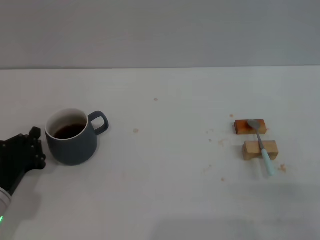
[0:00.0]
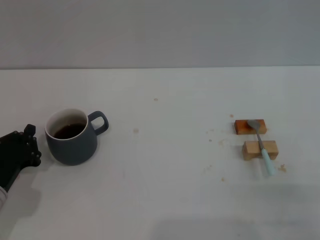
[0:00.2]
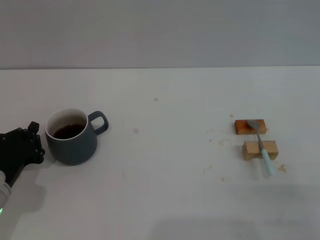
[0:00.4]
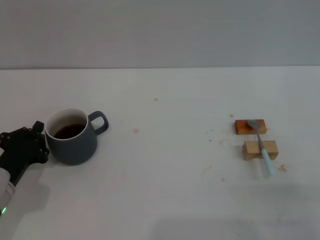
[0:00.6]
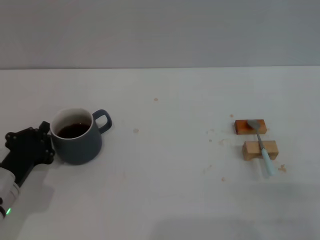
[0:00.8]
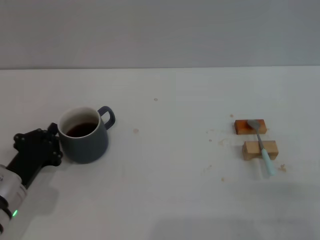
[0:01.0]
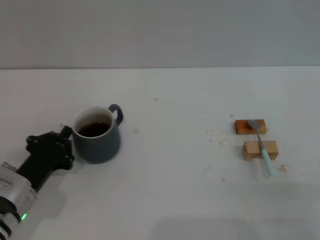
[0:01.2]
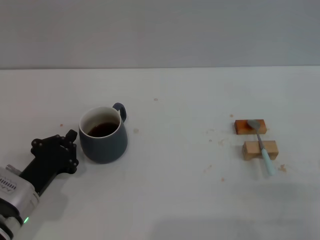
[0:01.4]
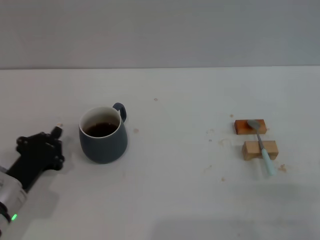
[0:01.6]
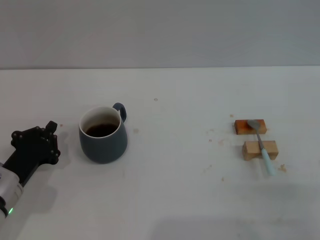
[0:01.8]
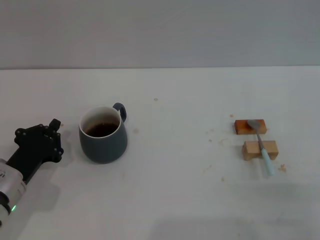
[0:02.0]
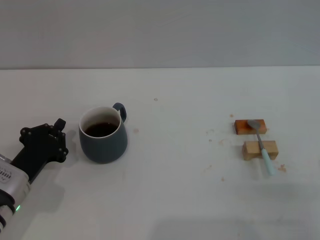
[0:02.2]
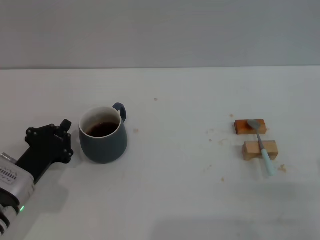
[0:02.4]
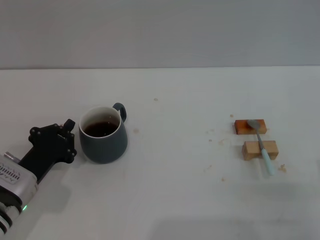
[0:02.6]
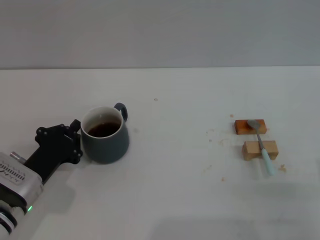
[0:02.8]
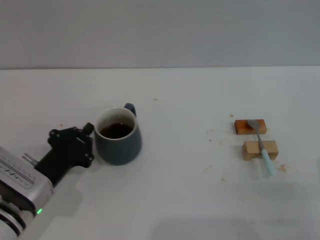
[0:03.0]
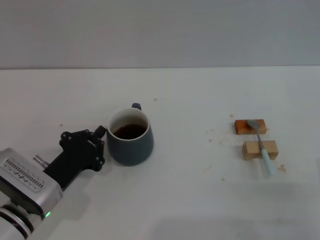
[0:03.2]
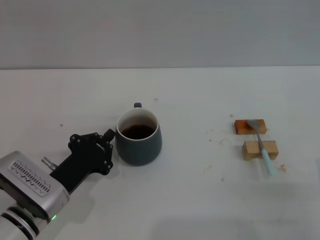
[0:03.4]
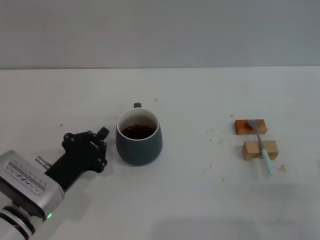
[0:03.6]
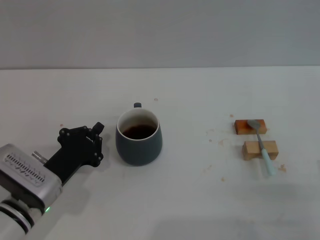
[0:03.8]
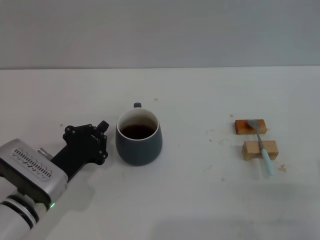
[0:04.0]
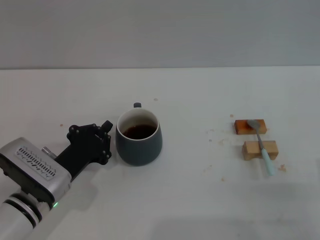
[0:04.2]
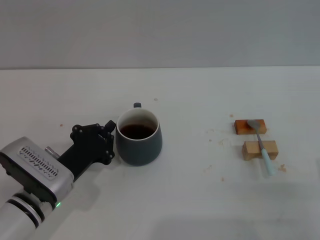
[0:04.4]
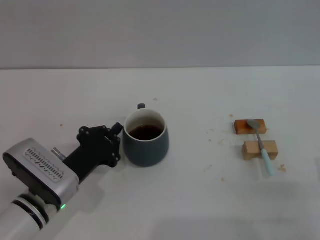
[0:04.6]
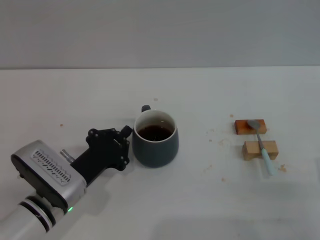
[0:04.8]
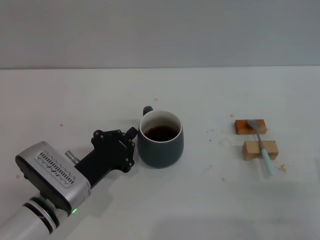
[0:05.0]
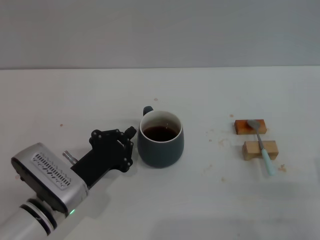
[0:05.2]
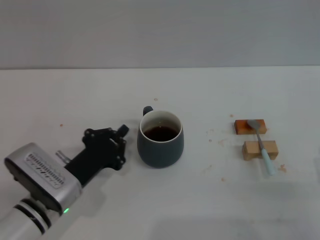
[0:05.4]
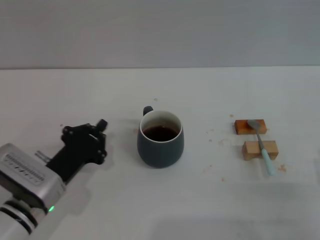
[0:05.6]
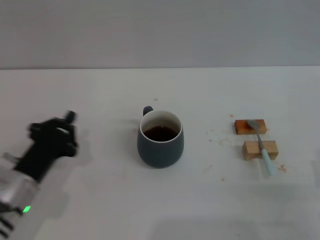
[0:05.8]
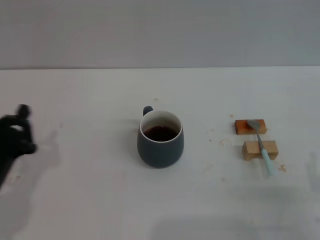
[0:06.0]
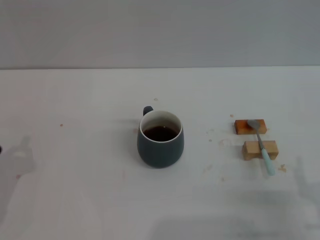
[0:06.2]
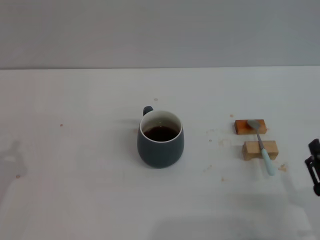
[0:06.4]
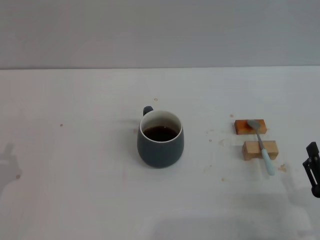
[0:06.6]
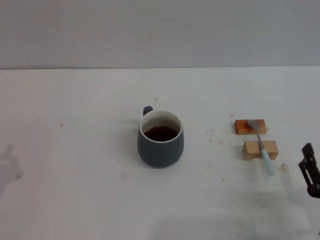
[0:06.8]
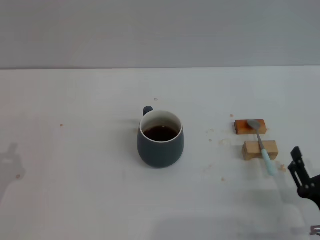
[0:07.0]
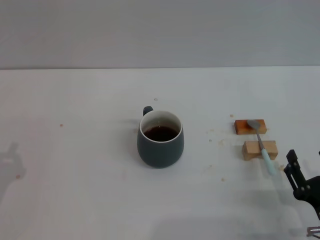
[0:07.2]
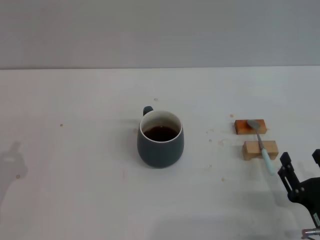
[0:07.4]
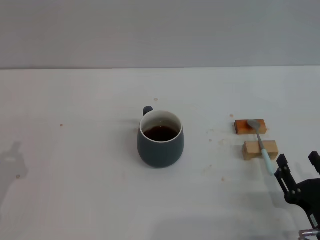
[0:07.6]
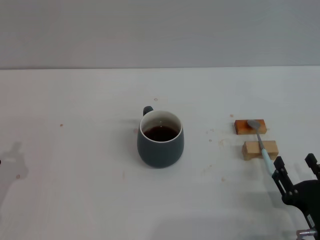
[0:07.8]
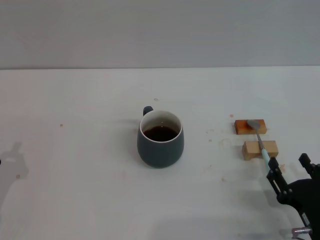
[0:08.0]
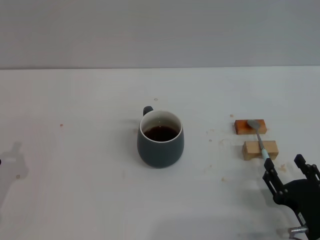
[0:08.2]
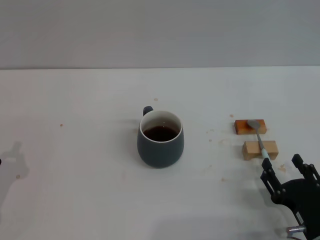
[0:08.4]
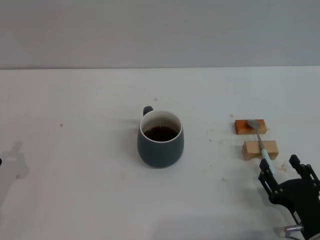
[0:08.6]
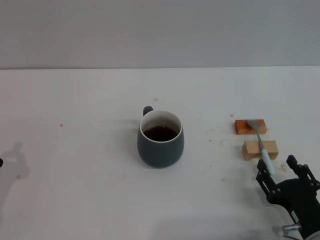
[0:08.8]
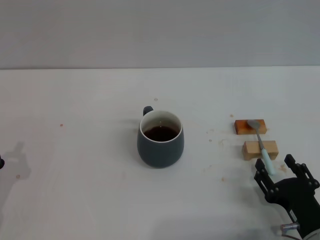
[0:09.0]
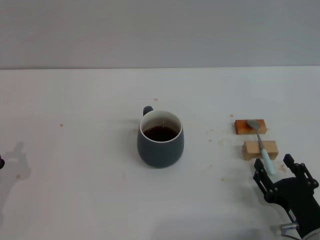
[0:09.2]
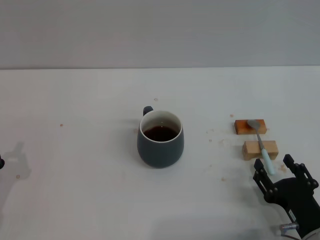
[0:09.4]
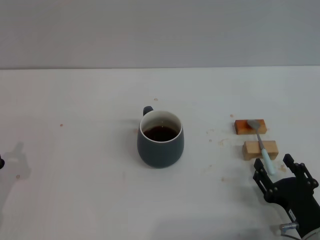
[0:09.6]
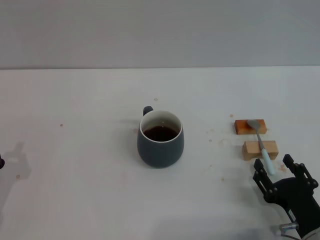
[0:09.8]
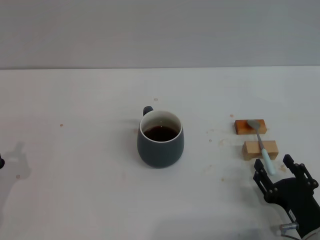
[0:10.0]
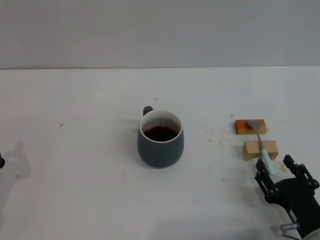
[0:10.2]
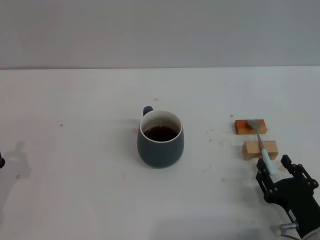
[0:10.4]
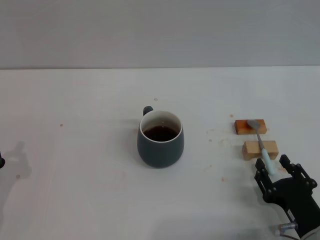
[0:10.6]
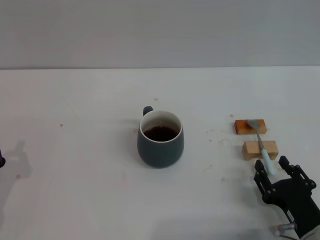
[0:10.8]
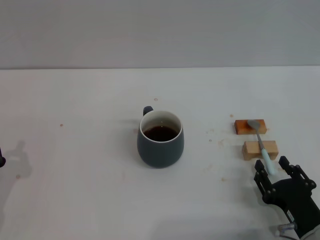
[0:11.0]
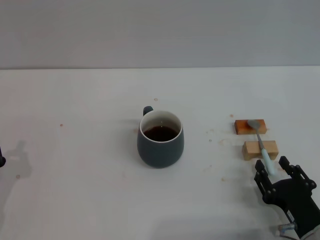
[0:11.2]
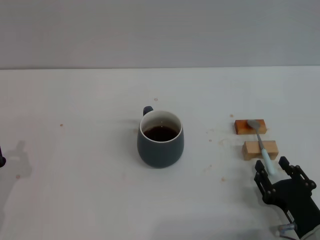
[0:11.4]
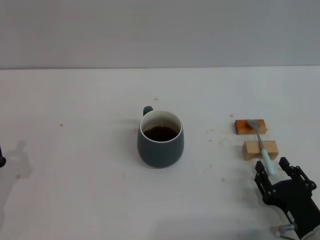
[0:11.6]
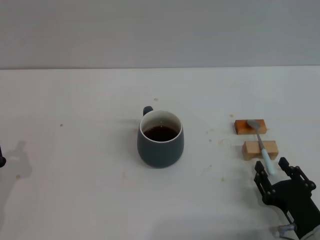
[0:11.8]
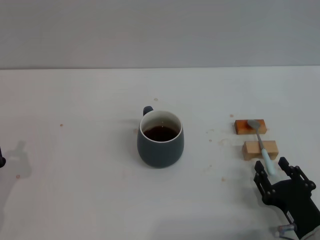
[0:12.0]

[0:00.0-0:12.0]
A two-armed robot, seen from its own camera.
Task of the whole recording: Move the grey cup to the center, lift the blue spoon, stir it three times in the cup, and put the spoon into the cup.
Step, 0:00.0 to 0:05.4: Move the cup with coffee to the center of view with the left gripper.
0:00.0 to 0:03.0: The grippers stay close to where they were, moving slightly.
0:03.0 to 0:04.4: The grippers move only a little.
0:04.4 to 0:06.0: The left gripper travels to the left and backward by some 10 cm.
0:06.0 to 0:07.6: There are only small adjustments of the grippers.
0:07.6 to 0:09.0: The grippers move only a little.
0:09.0 to 0:12.0: Both grippers stay about where they are.

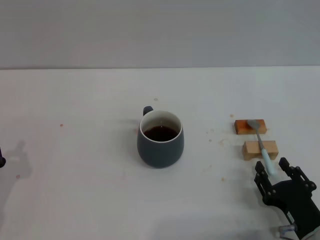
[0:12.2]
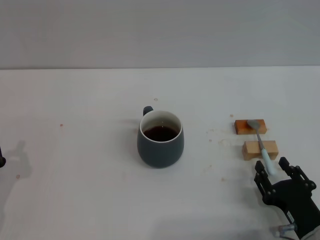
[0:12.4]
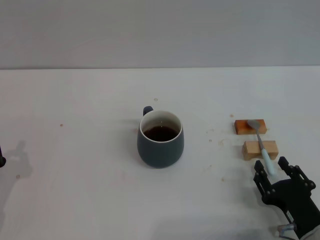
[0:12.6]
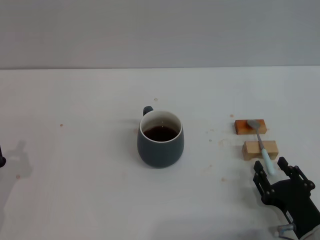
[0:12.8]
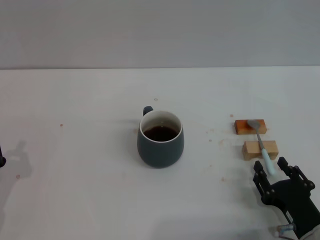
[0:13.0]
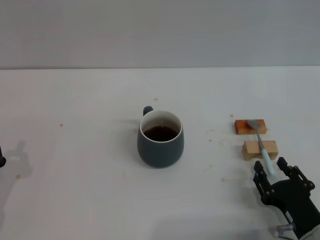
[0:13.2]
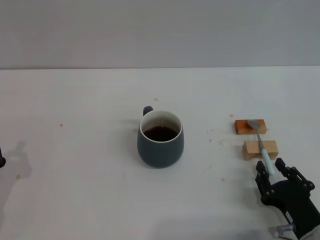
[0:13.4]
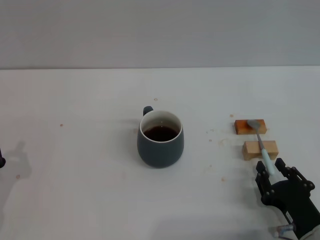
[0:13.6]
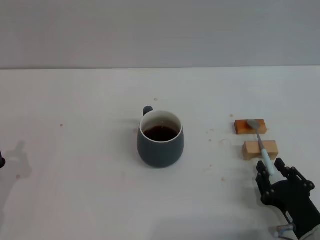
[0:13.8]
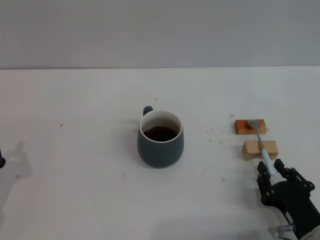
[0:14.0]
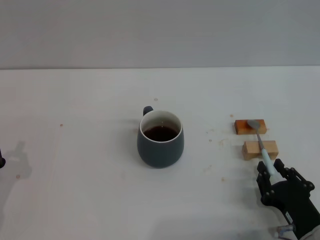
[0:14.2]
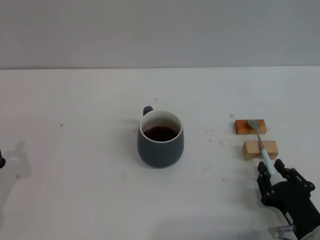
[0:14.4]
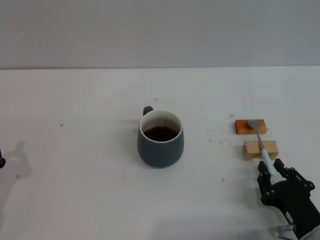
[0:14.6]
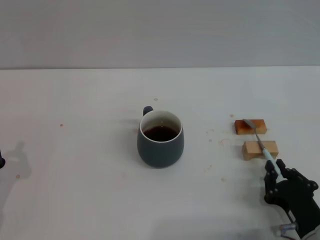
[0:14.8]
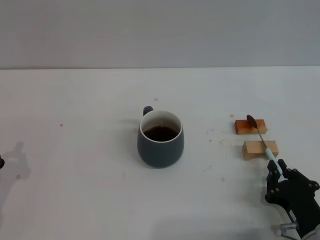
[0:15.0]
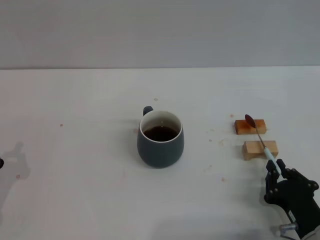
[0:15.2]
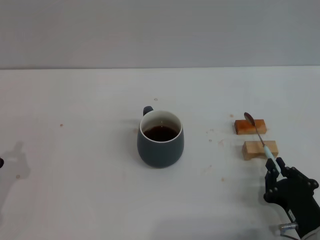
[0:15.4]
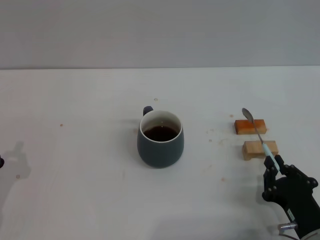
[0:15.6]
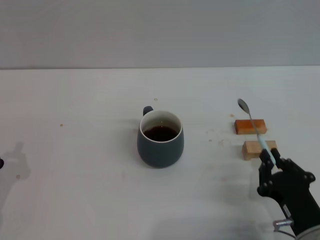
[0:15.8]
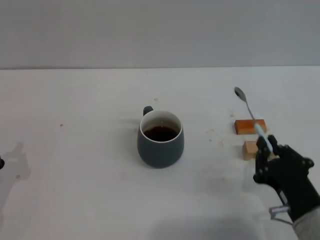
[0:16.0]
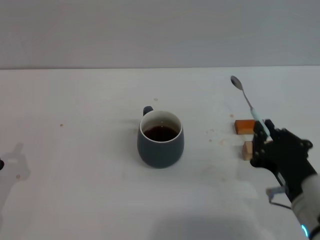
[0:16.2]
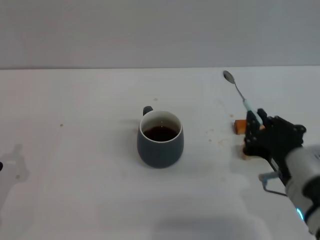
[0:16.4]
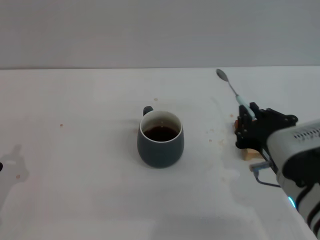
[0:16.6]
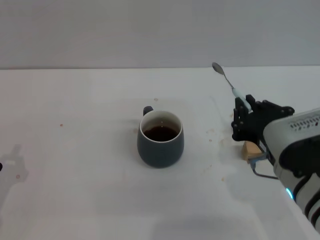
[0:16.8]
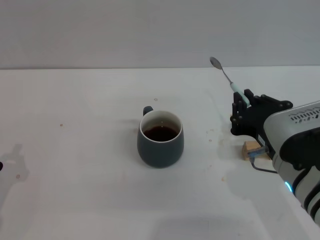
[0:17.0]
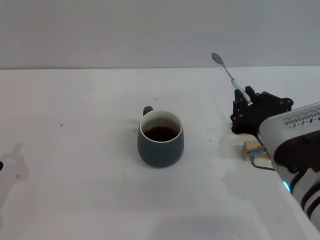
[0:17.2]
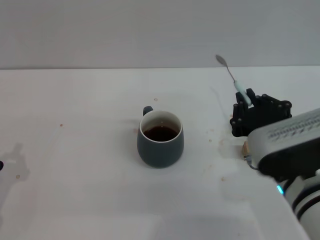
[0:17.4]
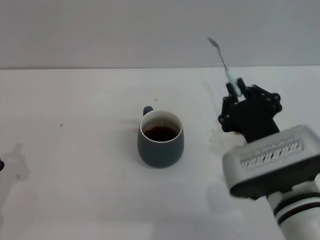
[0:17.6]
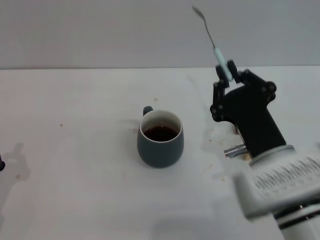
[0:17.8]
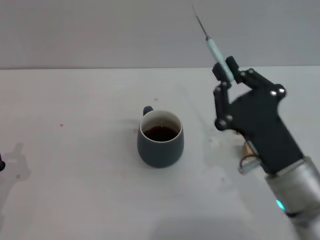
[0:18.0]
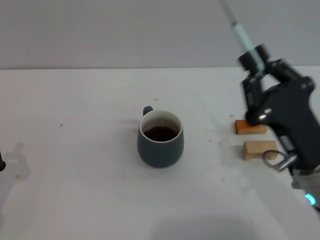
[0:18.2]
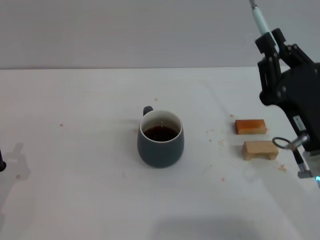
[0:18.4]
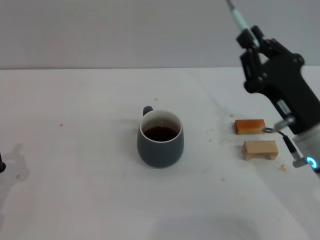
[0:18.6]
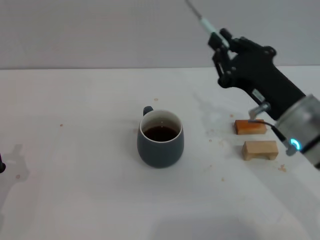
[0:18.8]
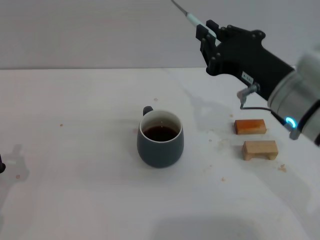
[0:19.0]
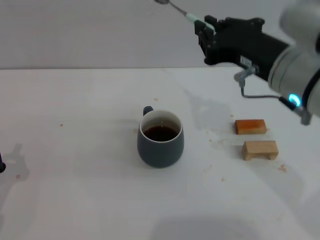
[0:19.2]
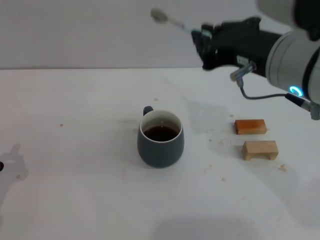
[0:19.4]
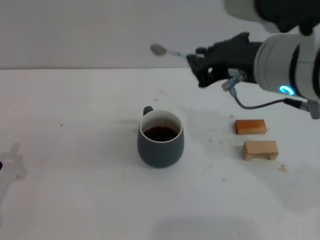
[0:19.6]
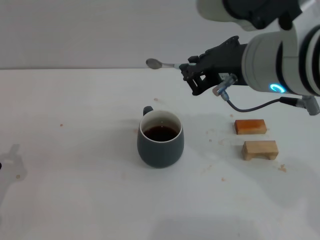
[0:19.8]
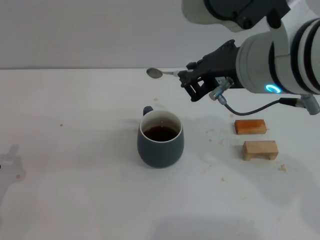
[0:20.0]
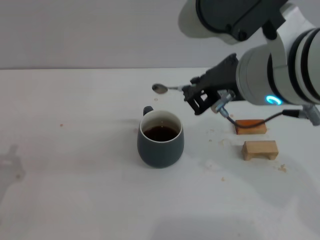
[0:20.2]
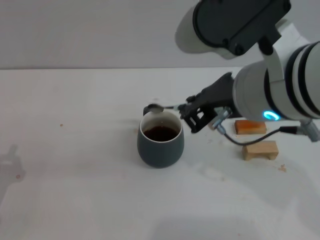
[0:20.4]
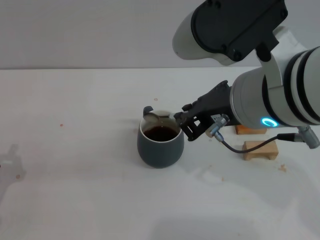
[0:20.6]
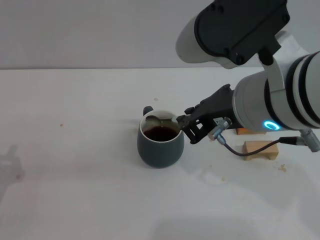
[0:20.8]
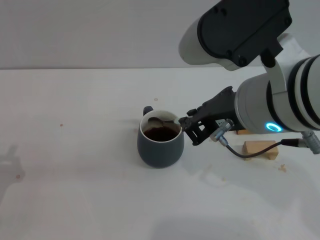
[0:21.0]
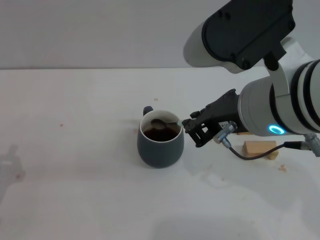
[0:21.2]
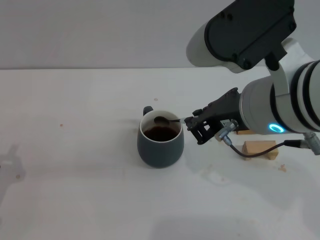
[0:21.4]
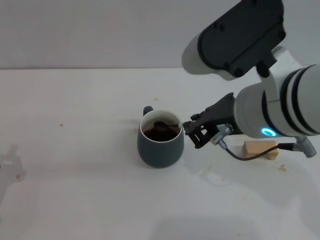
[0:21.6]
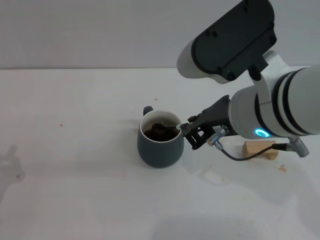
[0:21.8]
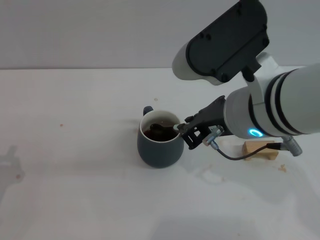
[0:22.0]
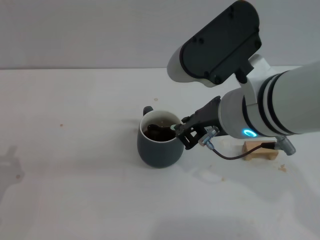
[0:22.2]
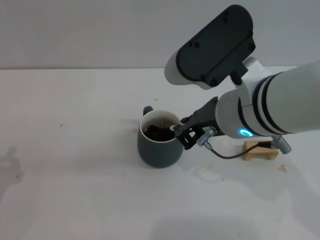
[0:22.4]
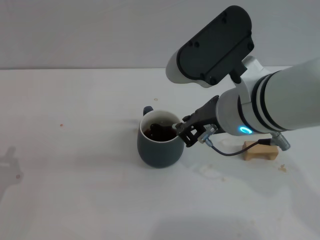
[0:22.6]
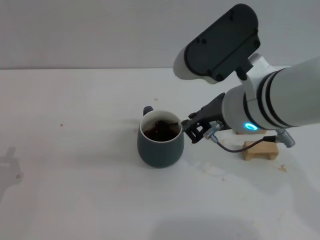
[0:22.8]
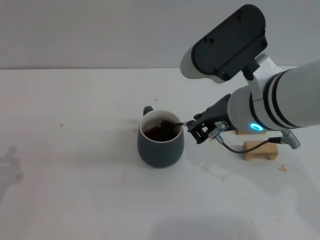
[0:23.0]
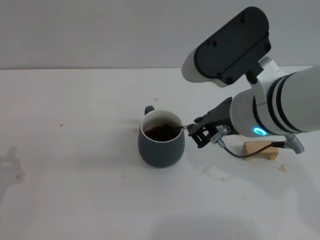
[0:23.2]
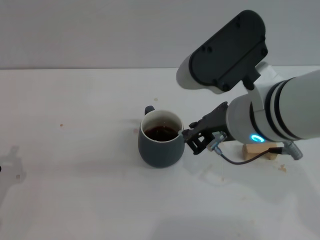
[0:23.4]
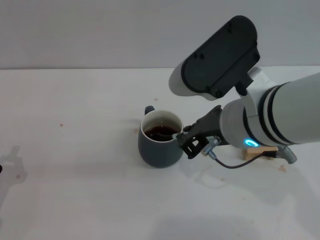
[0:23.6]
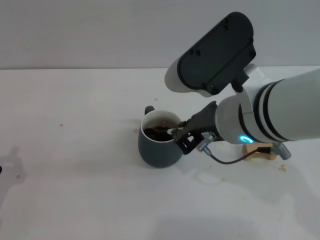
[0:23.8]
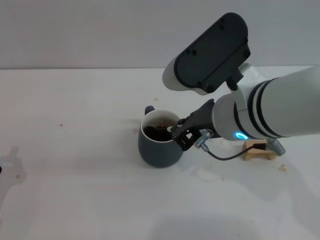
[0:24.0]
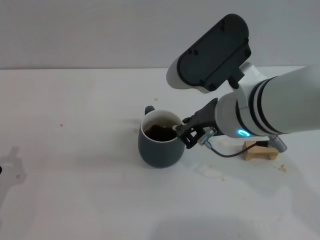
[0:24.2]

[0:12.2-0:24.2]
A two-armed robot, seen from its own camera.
Task of the whole recording: Move the grey cup to the center, lift the blue spoon, stir it three times in the cup, and put the spoon into the cup.
Step, 0:12.2 to 0:16.4: Pick up the spoon with the right gripper.
0:12.2 to 0:13.8: Both grippers stay about where they are.
0:13.8 to 0:15.2: The right gripper closes.
0:15.2 to 0:16.6: The right gripper shifts roughly 15 cm upward and to the left.
0:16.6 to 0:18.2: The right gripper shifts by approximately 5 cm.
0:18.2 to 0:19.8: The right gripper shifts roughly 20 cm upward and to the left.
0:19.8 to 0:21.2: There are only small adjustments of the grippers.
0:21.2 to 0:22.6: The right gripper changes place by approximately 5 cm.
0:22.6 to 0:24.2: The grippers move only a little.
